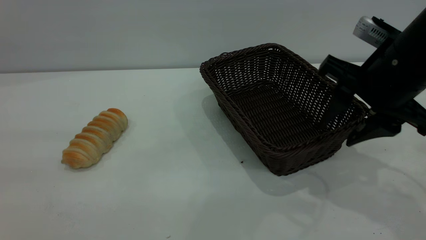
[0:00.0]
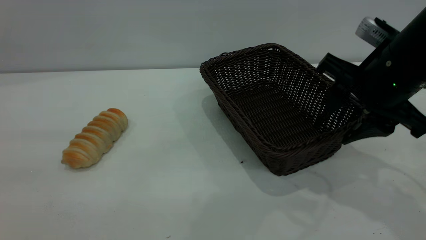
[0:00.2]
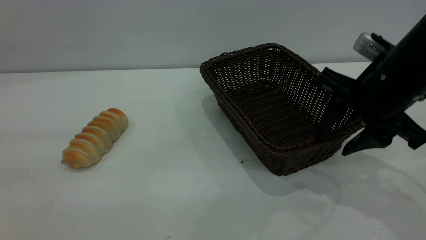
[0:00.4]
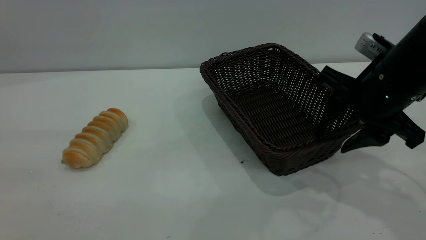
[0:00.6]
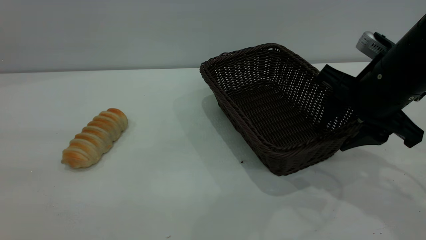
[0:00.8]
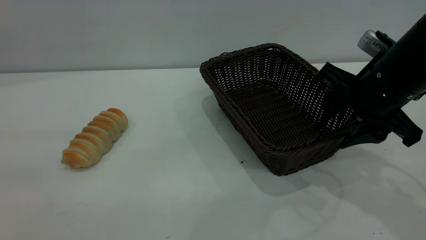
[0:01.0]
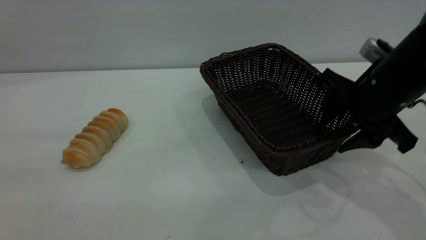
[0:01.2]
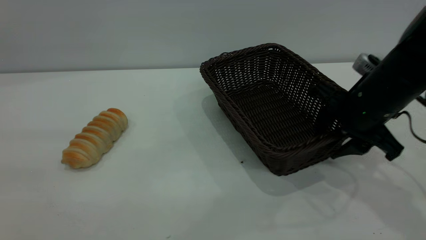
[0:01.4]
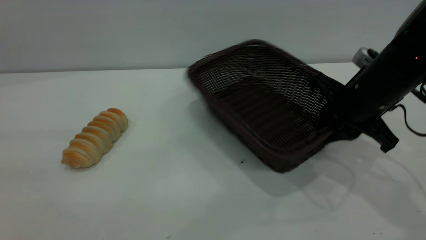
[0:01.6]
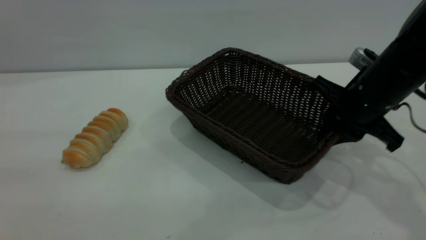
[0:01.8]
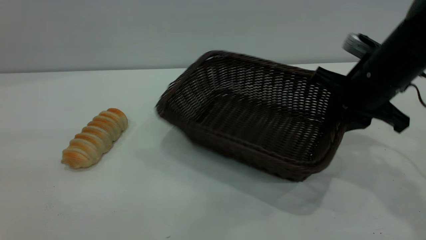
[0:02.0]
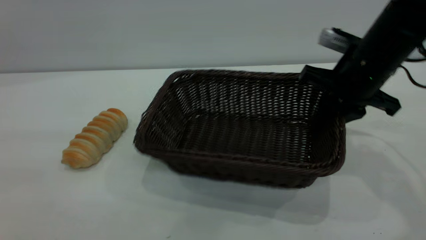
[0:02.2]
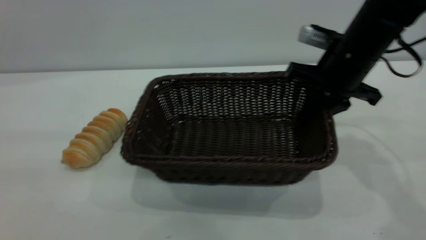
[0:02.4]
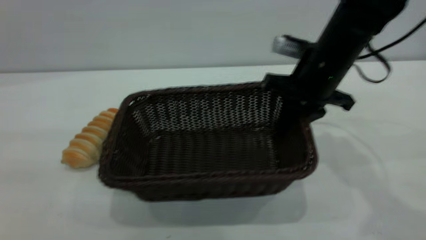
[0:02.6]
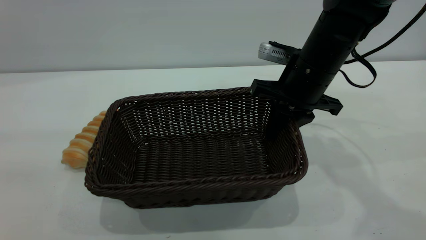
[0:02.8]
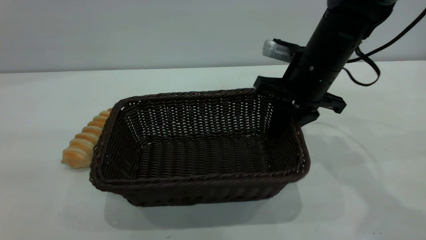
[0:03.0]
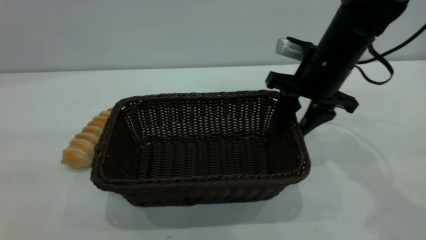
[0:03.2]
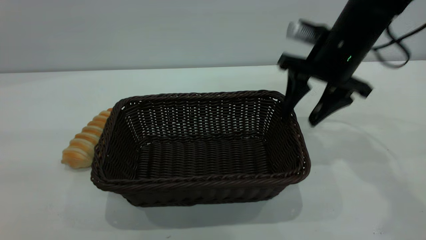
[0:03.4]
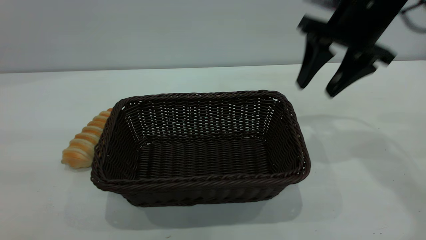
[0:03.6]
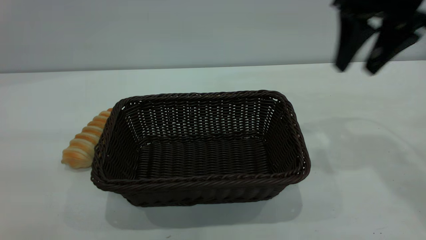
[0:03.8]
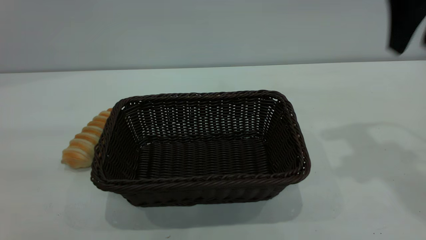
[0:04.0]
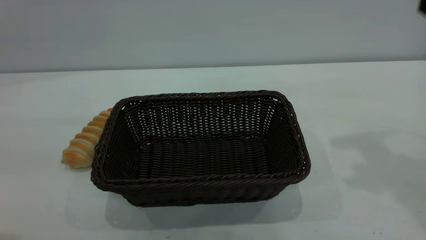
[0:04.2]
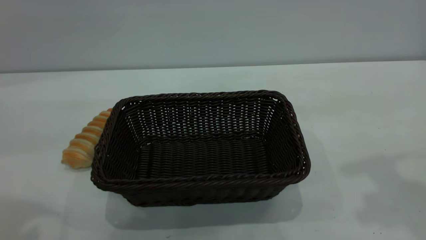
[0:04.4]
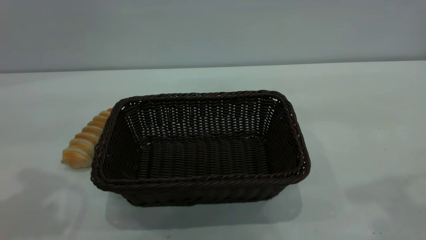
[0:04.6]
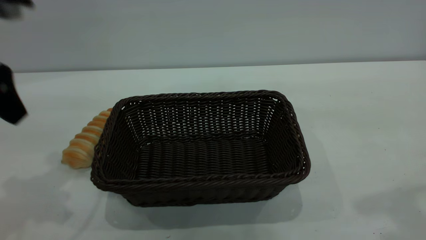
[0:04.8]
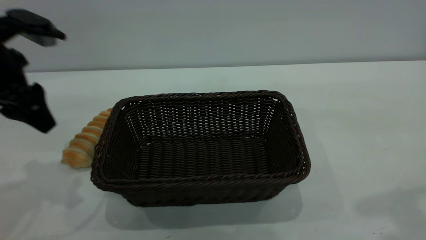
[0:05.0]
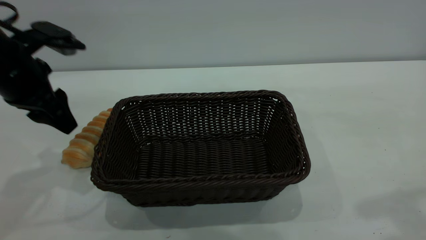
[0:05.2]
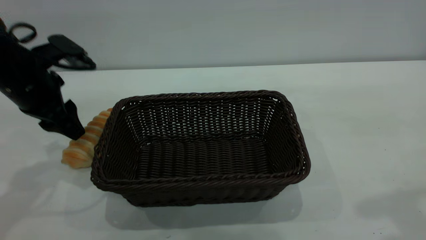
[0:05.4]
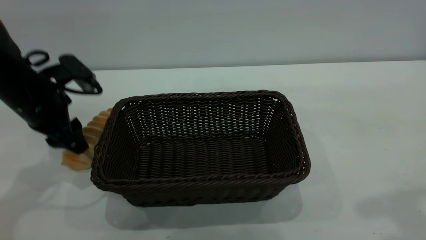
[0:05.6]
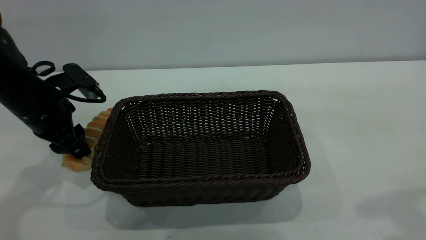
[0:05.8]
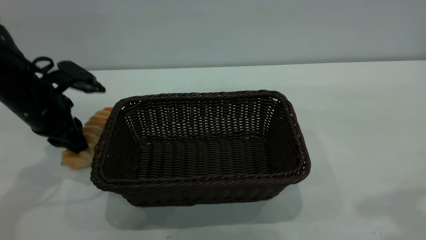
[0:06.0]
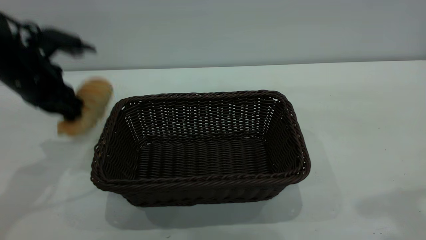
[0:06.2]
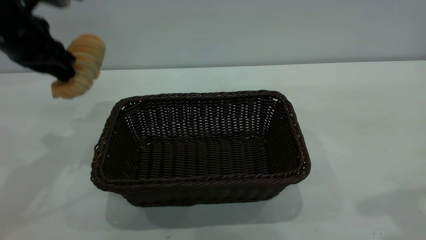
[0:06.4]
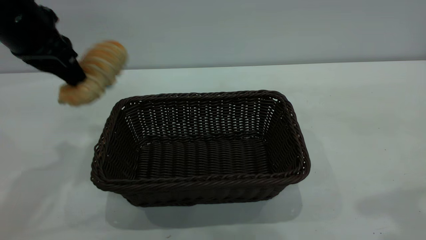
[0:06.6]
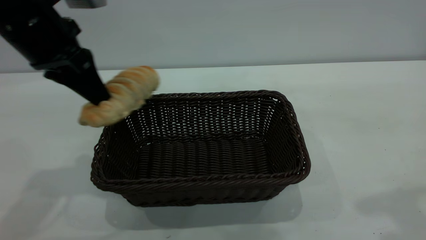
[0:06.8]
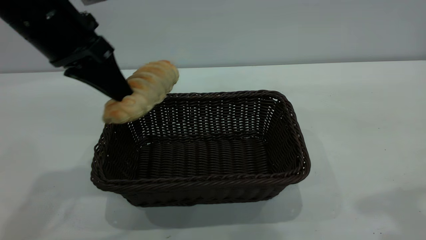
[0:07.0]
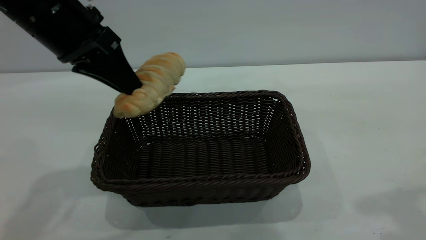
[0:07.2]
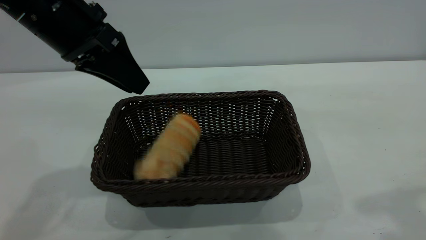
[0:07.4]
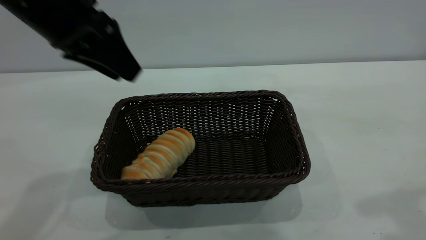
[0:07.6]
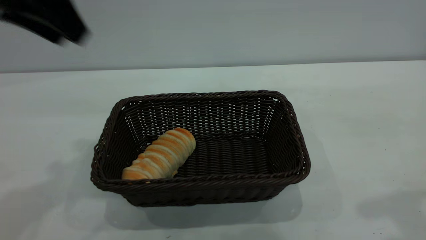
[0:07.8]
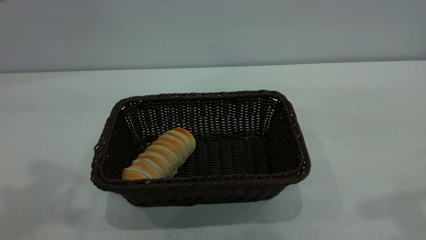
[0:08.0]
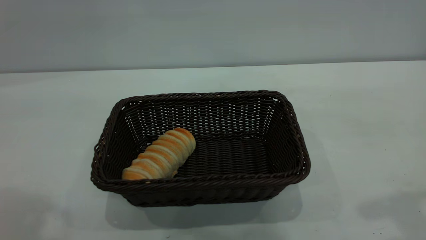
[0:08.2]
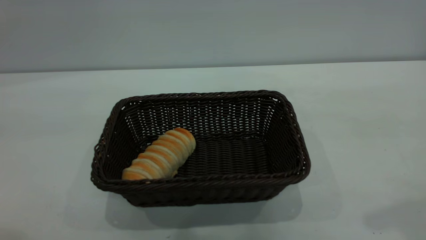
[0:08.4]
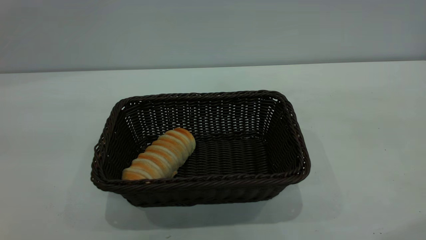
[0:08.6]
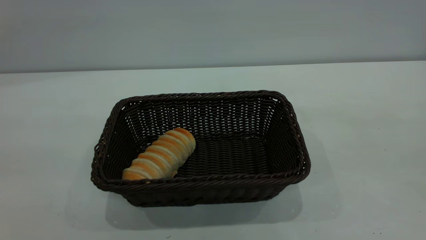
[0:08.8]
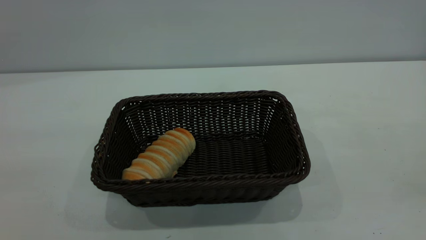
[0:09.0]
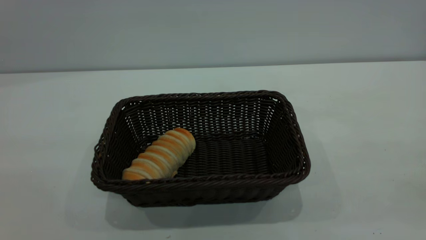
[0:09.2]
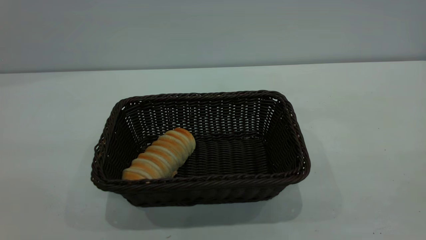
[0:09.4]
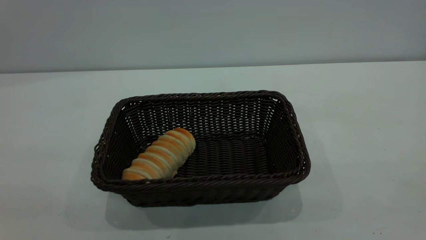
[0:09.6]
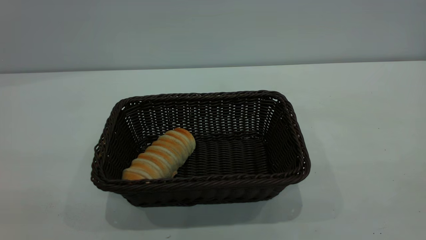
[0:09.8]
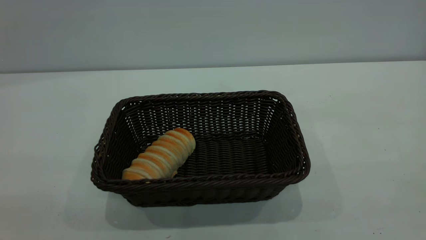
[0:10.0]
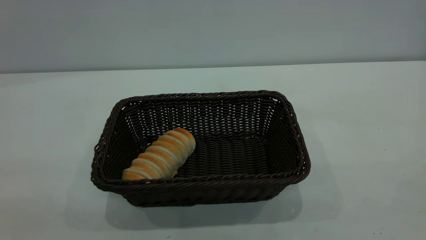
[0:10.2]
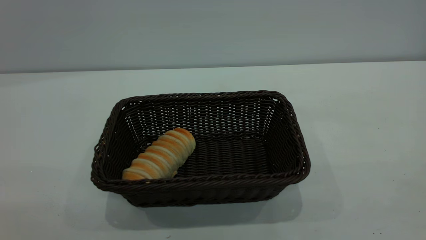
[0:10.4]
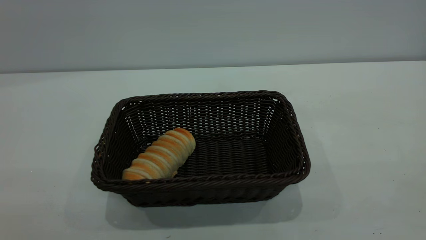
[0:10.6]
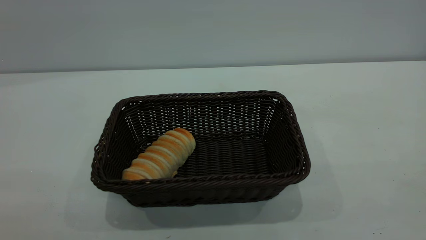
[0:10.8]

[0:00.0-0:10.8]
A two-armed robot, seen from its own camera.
Task of the whole recording: One hand grasps the black basket and places it in the middle of the table, while the other hand picks up the long bread and puts it into the black basket.
Step, 0:00.0 to 0:03.4: Move the basket to the center of view.
Step, 0:06.4 to 0:07.6: place the bread into the basket.
0:00.0 to 0:01.6: The right gripper travels downward by some 5 cm, and closes.
0:01.6 to 0:03.0: The right gripper shifts approximately 10 cm to the left and forward.
0:03.0 to 0:04.6: The right gripper heads upward, backward and to the right, covering some 30 cm, and opens up. Meanwhile the left gripper travels forward by some 15 cm.
0:04.6 to 0:06.2: The left gripper moves forward and downward, some 15 cm, and closes up.
0:06.2 to 0:07.8: The left gripper travels upward and backward by about 20 cm, and opens its fingers.
0:07.8 to 0:09.2: The left gripper heads backward, covering approximately 25 cm.
